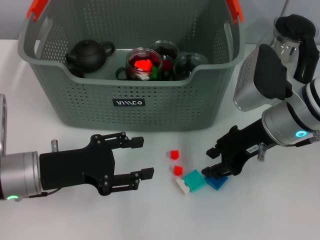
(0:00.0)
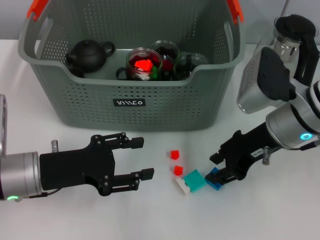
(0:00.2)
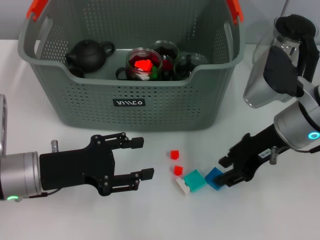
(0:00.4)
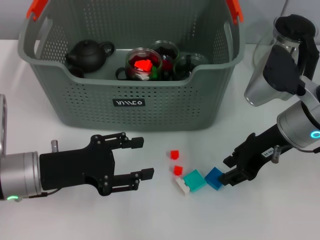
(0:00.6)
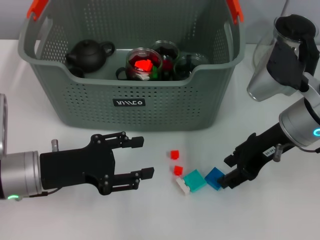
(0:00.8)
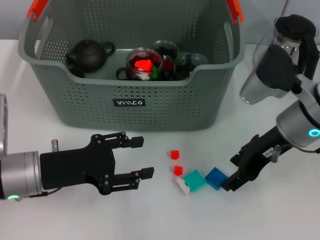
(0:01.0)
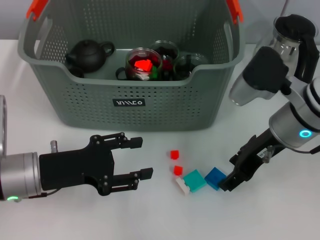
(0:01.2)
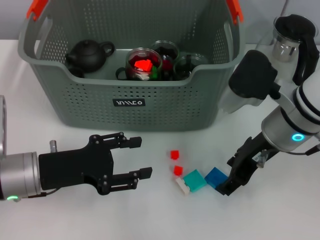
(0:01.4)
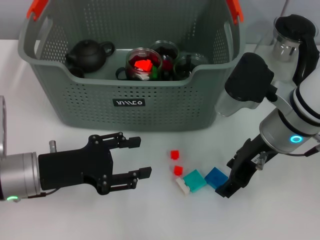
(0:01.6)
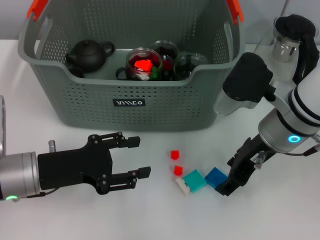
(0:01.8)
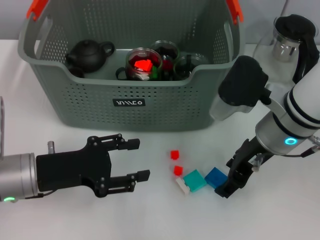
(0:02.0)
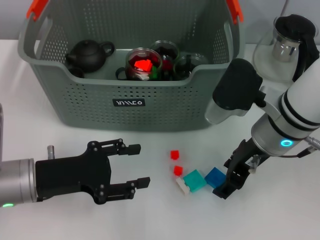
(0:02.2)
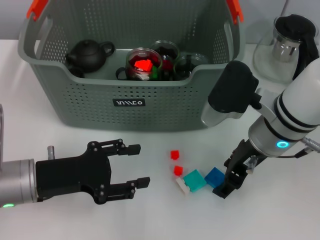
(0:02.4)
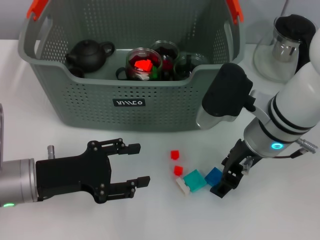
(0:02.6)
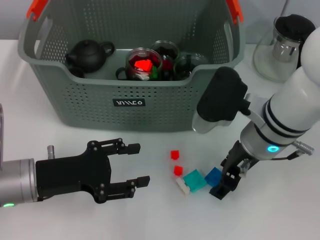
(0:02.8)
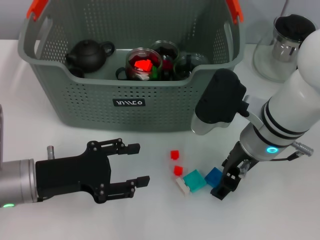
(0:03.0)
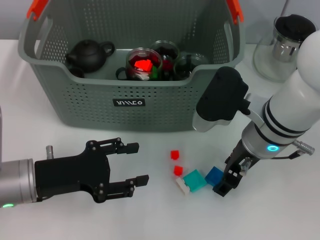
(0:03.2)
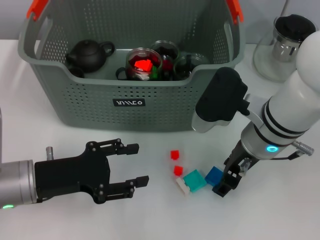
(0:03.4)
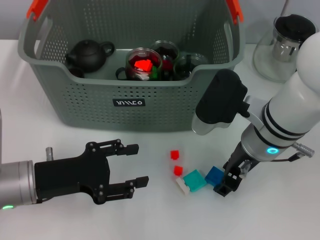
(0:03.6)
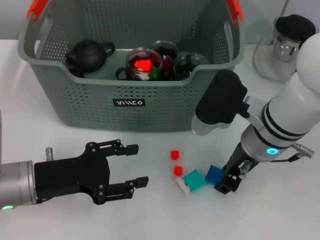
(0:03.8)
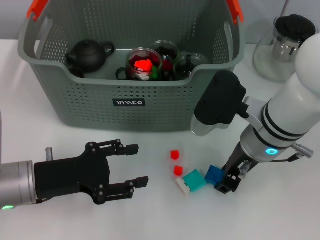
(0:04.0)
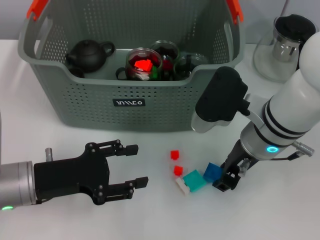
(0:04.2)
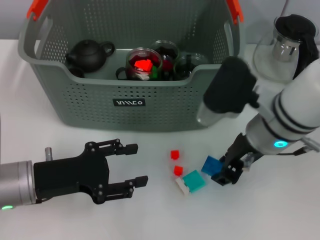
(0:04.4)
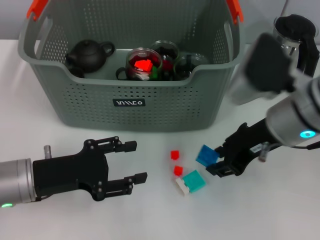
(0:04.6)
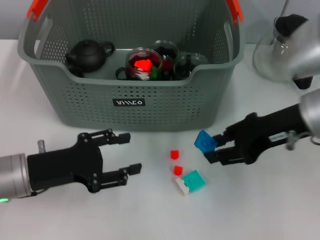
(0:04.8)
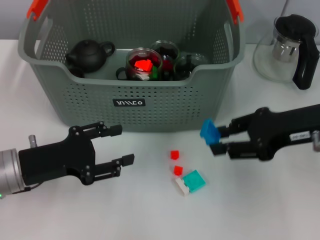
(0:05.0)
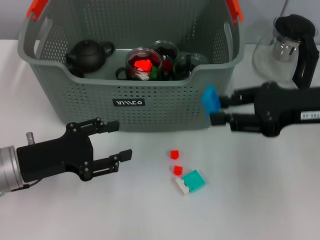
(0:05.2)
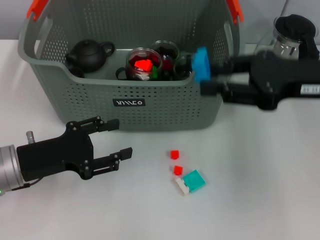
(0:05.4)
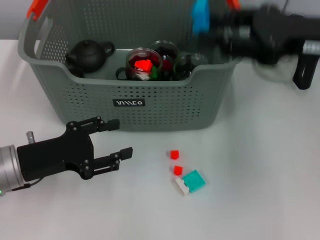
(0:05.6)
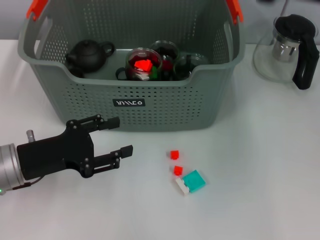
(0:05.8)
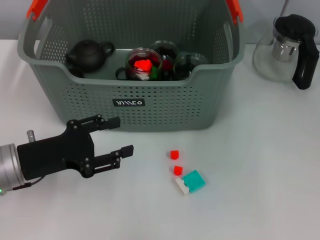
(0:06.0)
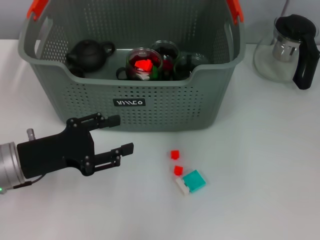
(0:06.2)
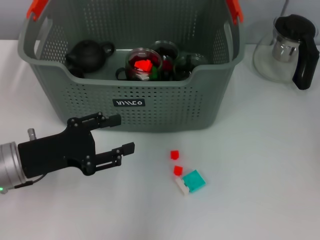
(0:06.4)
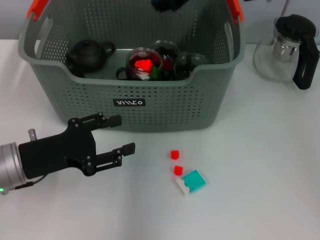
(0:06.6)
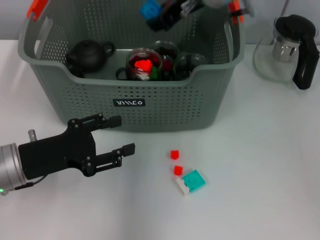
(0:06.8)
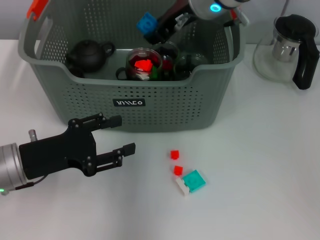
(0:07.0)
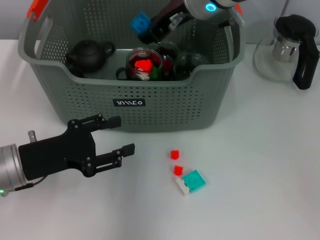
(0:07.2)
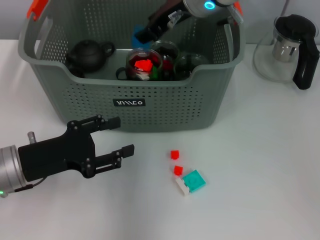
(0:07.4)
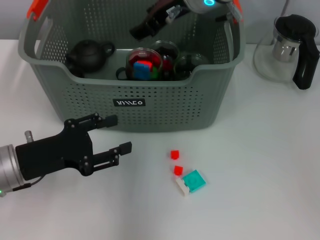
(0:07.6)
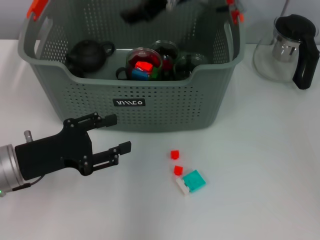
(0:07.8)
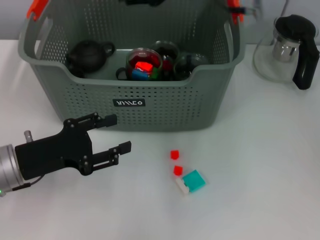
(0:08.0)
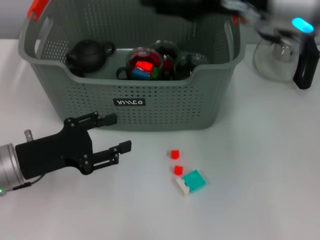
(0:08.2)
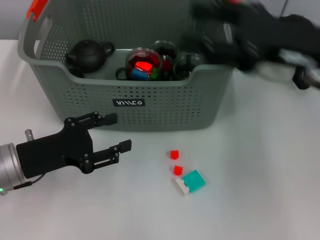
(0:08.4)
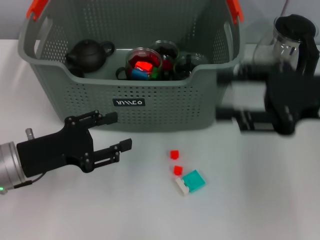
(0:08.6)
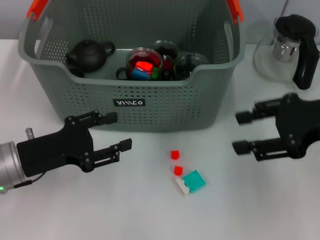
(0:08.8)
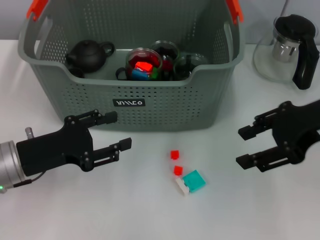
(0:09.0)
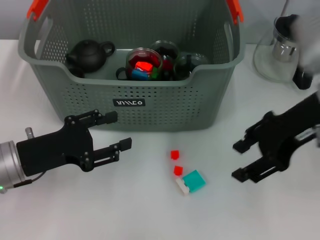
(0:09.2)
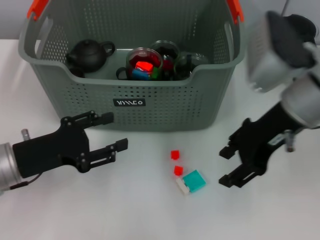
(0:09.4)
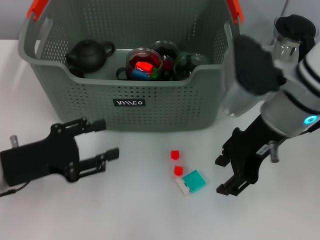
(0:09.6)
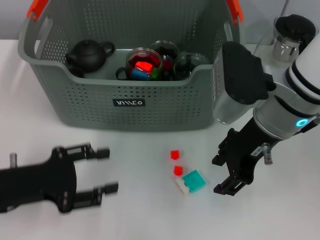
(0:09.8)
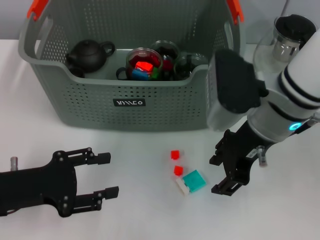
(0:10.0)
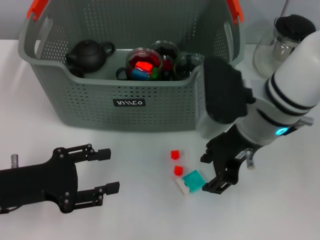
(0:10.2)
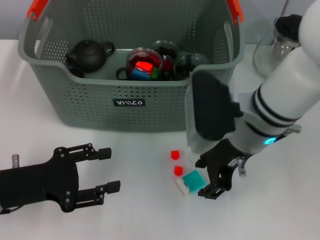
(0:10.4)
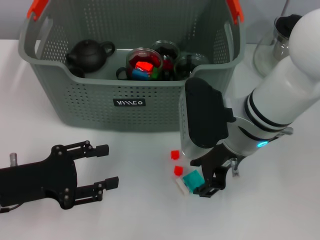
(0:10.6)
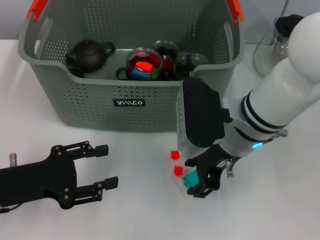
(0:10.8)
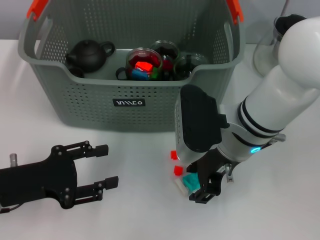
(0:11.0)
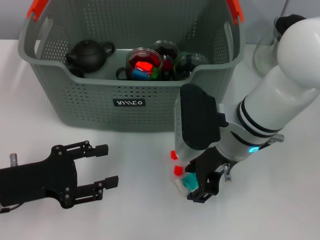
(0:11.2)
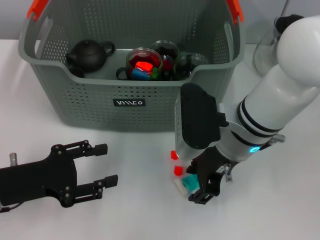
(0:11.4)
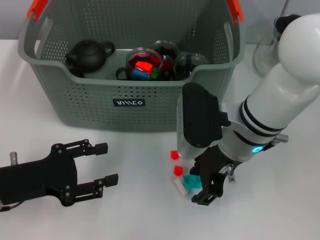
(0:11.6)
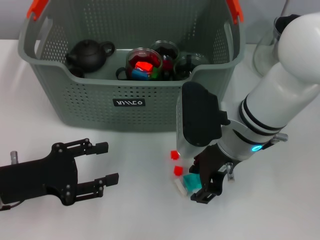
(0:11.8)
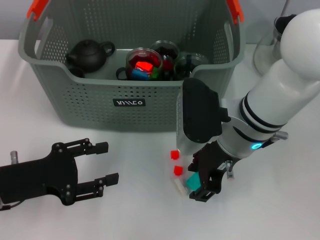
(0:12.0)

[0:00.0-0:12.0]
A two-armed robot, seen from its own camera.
Task of the whole recording: pick up the teacup on the table and place it into the storage bin, pick up the block on the table and place it into the storage bin.
Step, 0:00.0 to 0:03.8: Grasp the dark blue block with right gripper.
Step, 0:04.0 to 0:07.4: Place the dark blue block in the storage box with right gripper.
0:00.0 to 0:01.6: There are only small adjustments of the grippers.
0:01.6 to 0:03.0: There are only small adjustments of the grippers.
0:03.0 to 0:04.4: The right gripper closes up.
0:04.4 to 0:06.0: The right gripper travels upward, to the right and forward by approximately 20 cm.
0:06.0 to 0:07.6: The right gripper shifts about 15 cm to the left.
0:07.6 to 0:09.0: The right gripper is displaced to the right and backward by approximately 25 cm.
0:09.0 to 0:10.4: The right gripper travels to the left and downward by approximately 15 cm.
0:10.4 to 0:12.0: The grippers make only small movements.

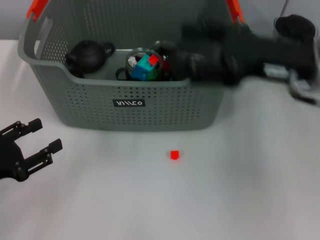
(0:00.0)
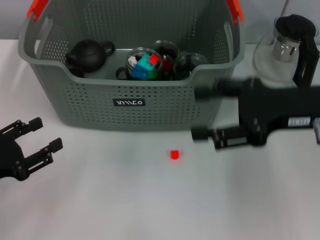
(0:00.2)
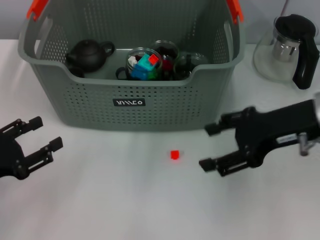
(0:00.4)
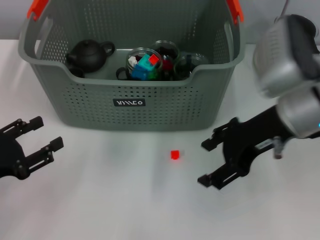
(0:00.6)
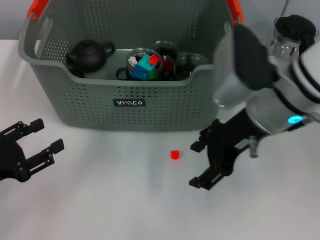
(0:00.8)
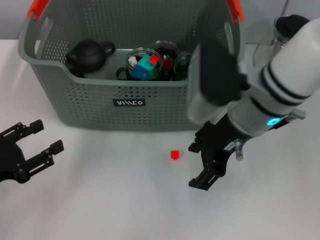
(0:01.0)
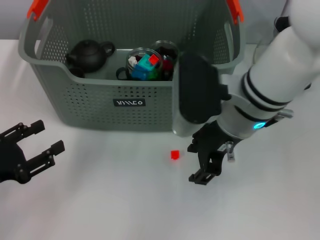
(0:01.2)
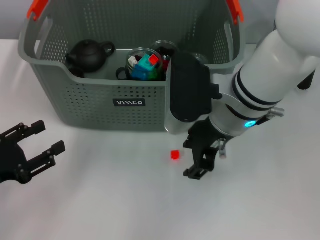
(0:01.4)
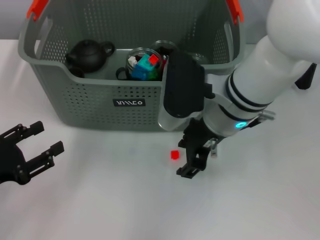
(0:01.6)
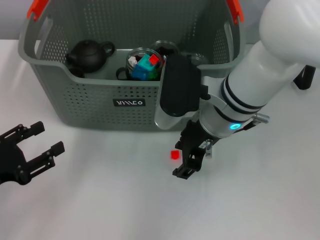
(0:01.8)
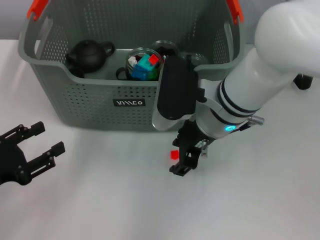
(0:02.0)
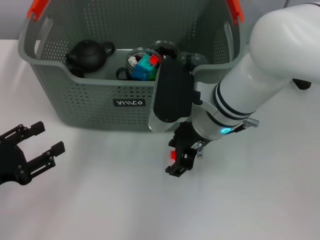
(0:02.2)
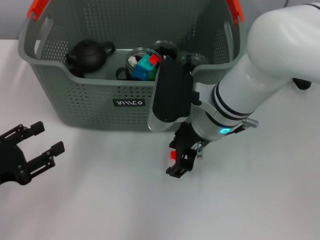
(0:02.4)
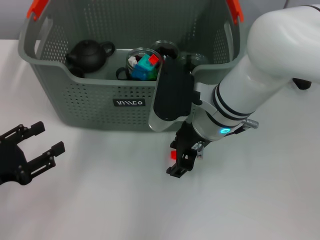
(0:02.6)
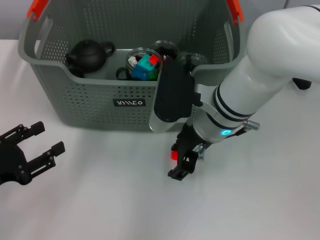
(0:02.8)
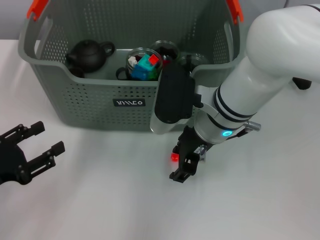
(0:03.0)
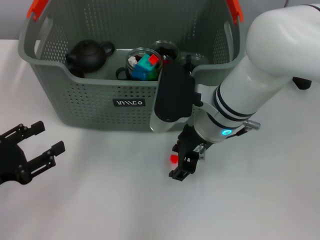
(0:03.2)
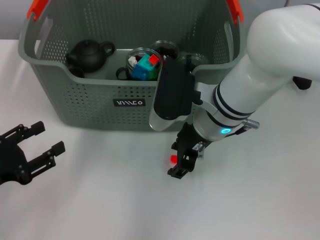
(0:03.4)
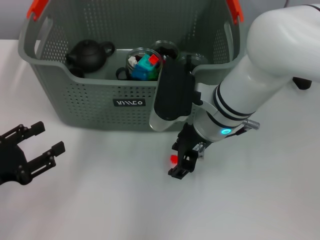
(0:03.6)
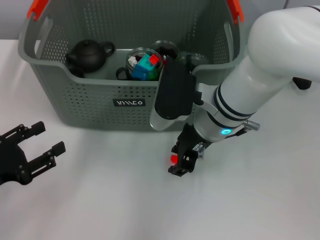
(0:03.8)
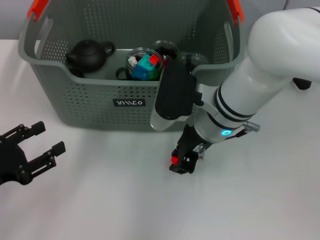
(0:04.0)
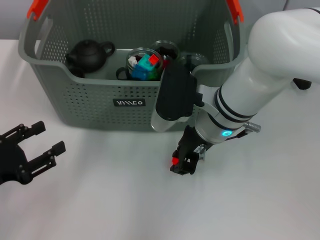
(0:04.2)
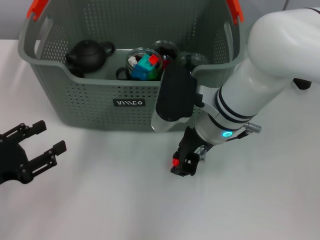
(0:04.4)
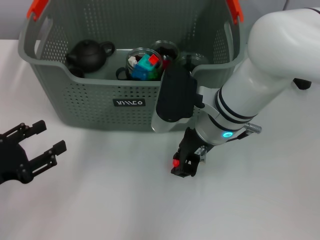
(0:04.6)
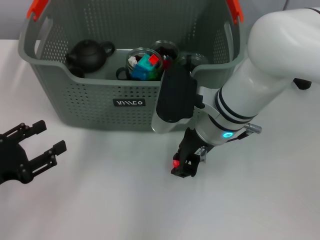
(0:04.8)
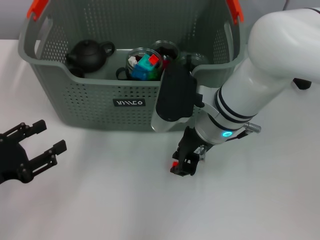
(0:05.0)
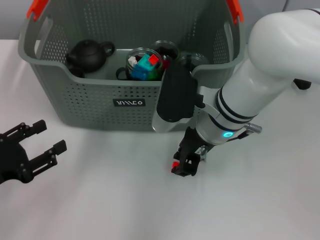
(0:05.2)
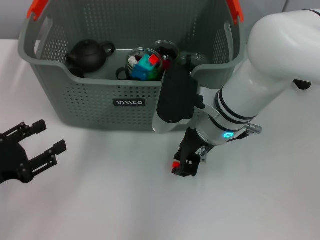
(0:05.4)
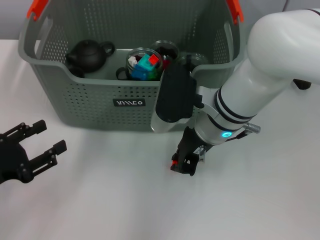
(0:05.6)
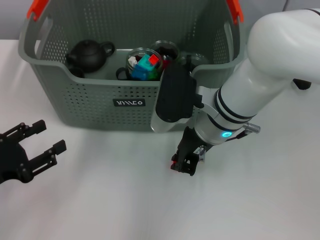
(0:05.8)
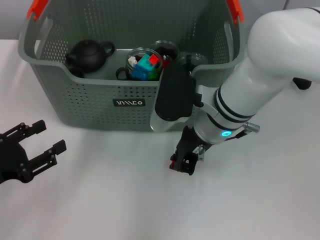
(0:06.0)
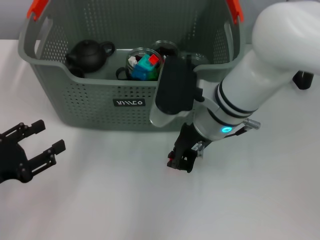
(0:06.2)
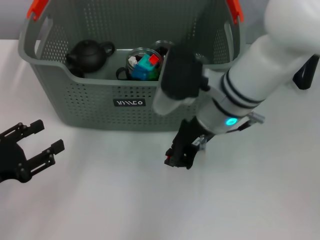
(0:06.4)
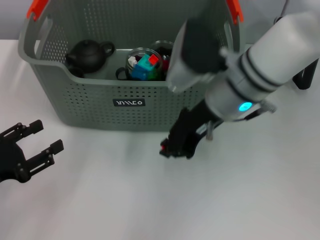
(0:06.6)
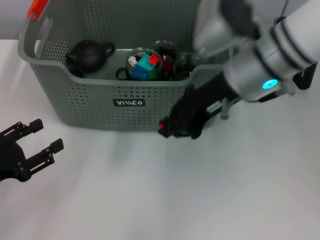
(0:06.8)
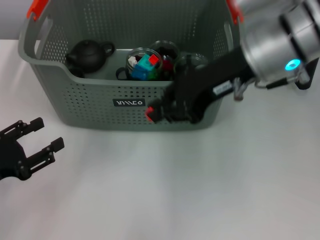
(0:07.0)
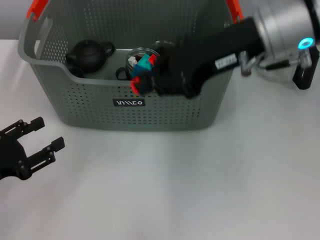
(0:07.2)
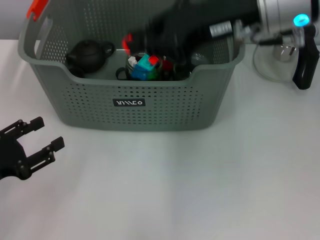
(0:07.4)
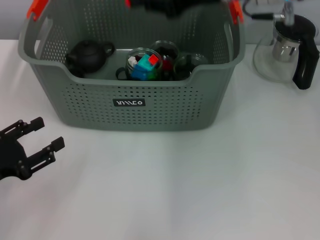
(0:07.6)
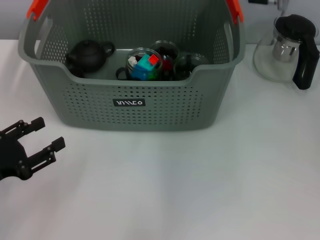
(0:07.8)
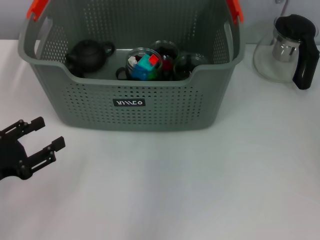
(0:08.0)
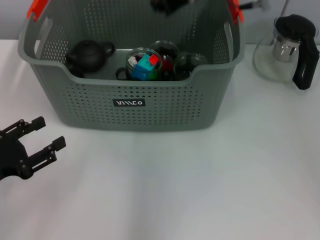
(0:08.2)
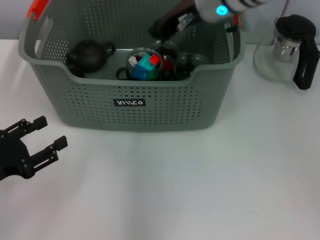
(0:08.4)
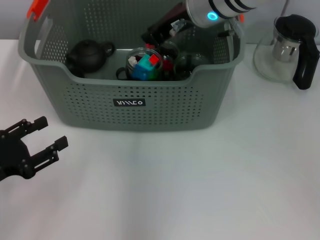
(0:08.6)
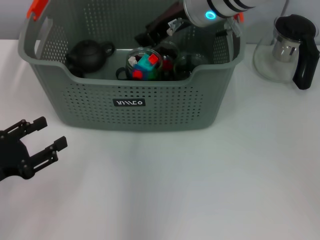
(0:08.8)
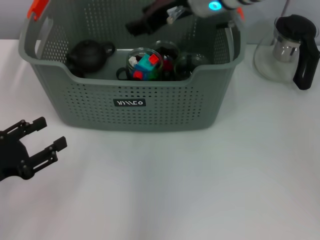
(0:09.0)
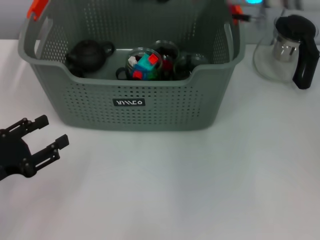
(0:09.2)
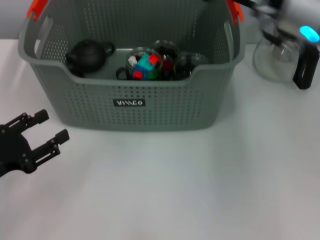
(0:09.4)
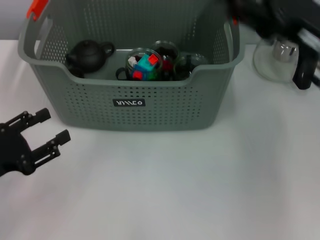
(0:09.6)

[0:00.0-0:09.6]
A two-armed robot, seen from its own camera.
Task of the whole recording: pick up the teacup on the table and place it into the storage bin, pick up the block on the table and place it into the storage bin.
Step, 0:00.0 to 0:05.6: Grasp the orange block with right gripper.
Step, 0:05.8 to 0:08.6: Place the orange block in the storage box with right gripper.
0:00.0 to 0:01.6: The right gripper heads to the left, covering approximately 15 cm.
0:01.6 to 0:03.2: The grippers stay close to where they were, moving slightly.
0:03.2 to 0:04.8: The right gripper closes up.
0:04.8 to 0:06.4: The grippers stay close to where they were, moving slightly.
0:06.4 to 0:08.0: The right gripper goes some 15 cm upward and forward.
0:08.0 to 0:09.6: The right gripper shifts approximately 20 cm to the right, backward and downward, and opens.
